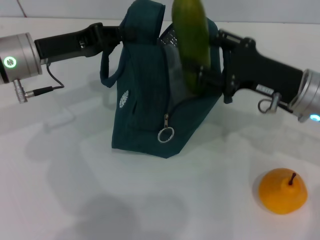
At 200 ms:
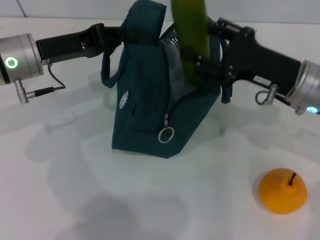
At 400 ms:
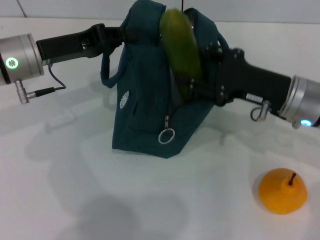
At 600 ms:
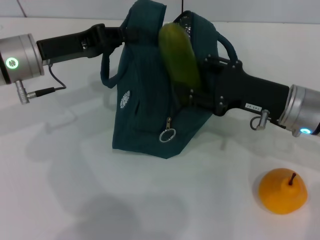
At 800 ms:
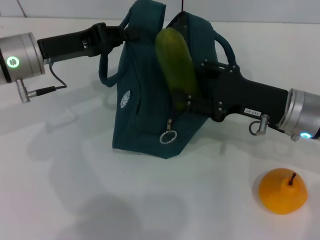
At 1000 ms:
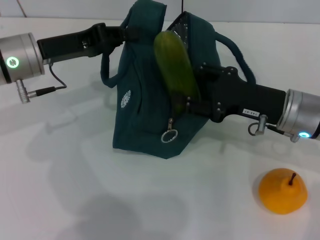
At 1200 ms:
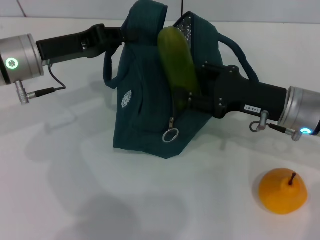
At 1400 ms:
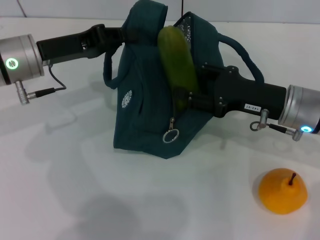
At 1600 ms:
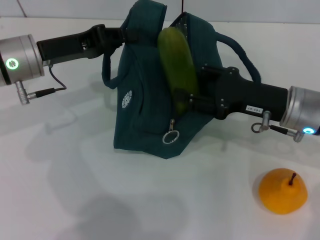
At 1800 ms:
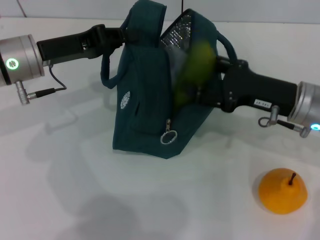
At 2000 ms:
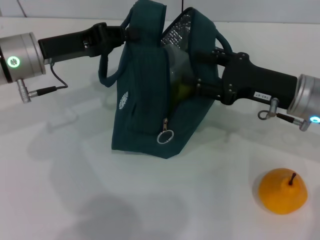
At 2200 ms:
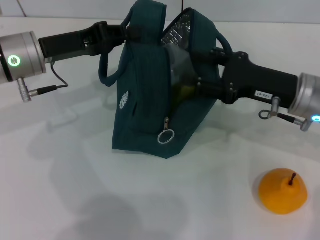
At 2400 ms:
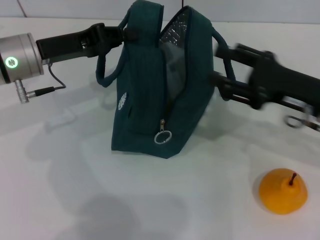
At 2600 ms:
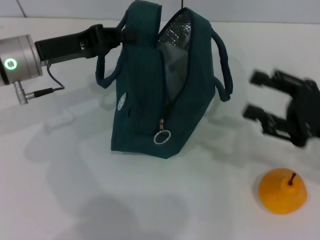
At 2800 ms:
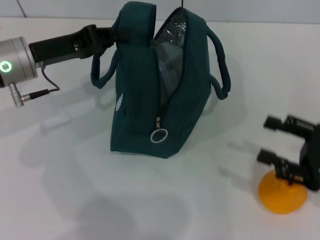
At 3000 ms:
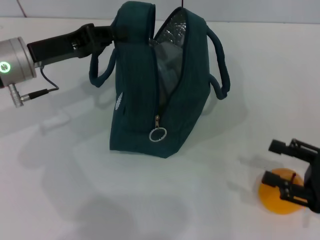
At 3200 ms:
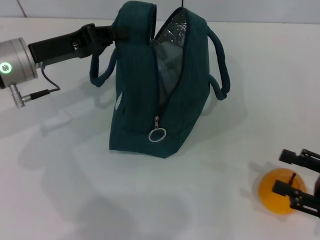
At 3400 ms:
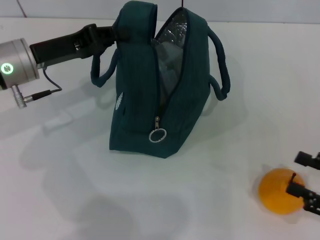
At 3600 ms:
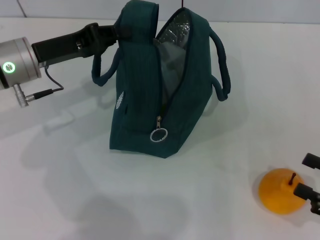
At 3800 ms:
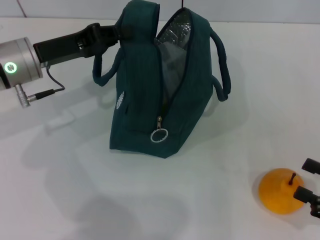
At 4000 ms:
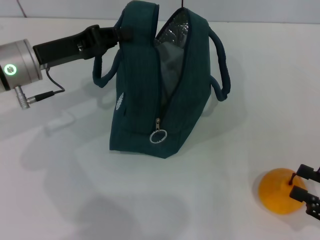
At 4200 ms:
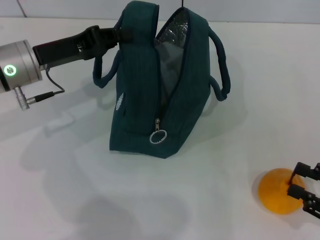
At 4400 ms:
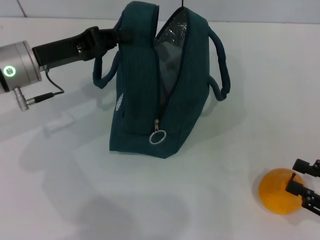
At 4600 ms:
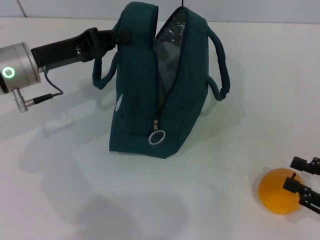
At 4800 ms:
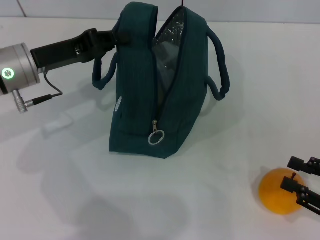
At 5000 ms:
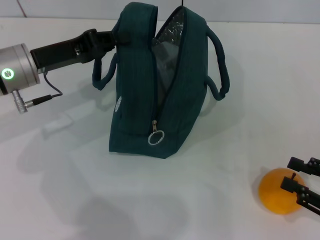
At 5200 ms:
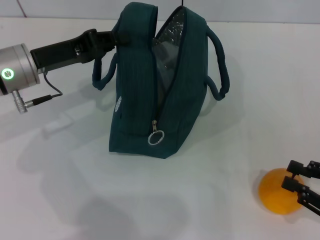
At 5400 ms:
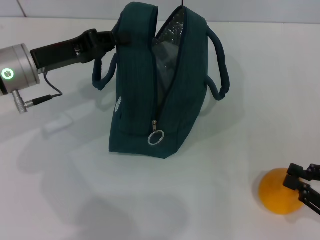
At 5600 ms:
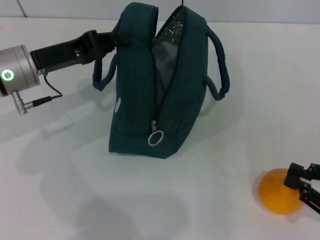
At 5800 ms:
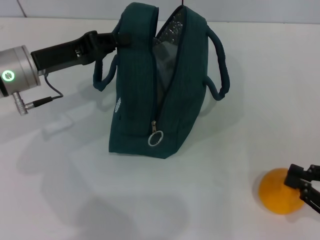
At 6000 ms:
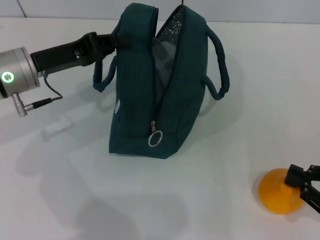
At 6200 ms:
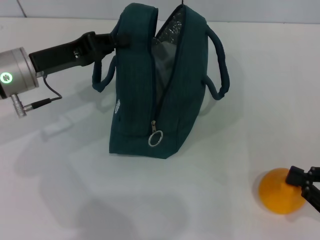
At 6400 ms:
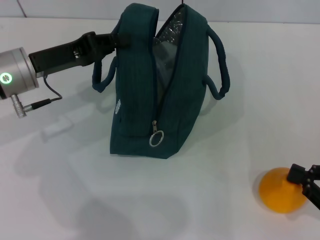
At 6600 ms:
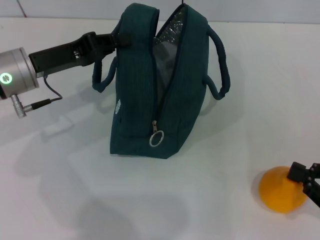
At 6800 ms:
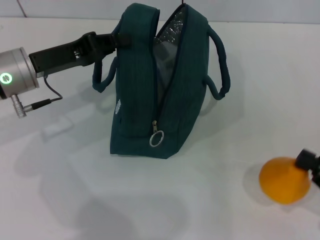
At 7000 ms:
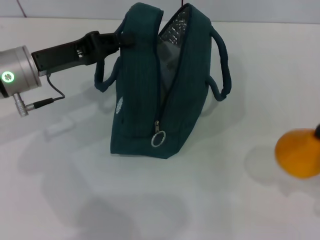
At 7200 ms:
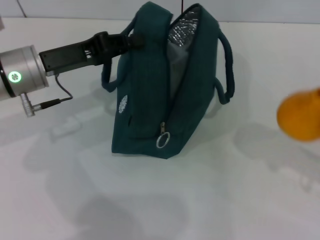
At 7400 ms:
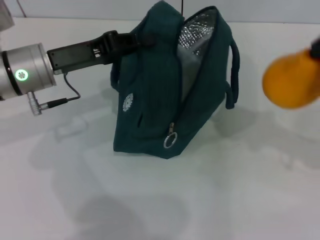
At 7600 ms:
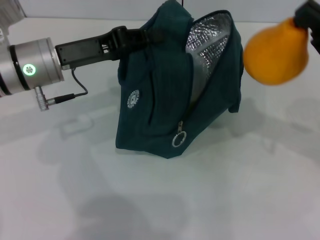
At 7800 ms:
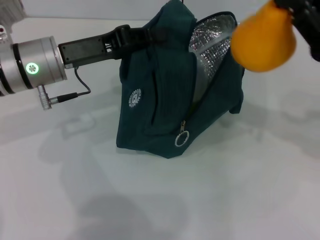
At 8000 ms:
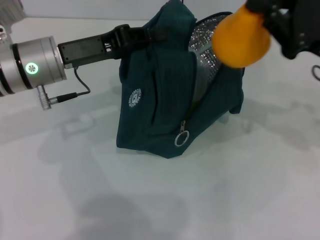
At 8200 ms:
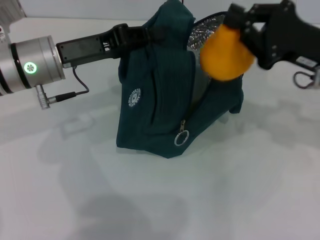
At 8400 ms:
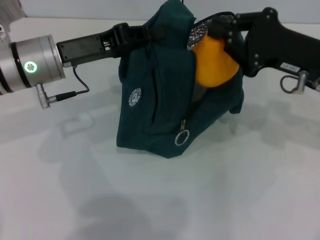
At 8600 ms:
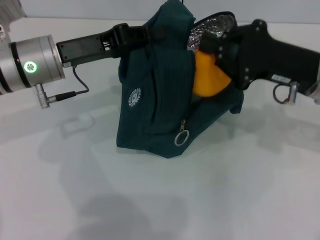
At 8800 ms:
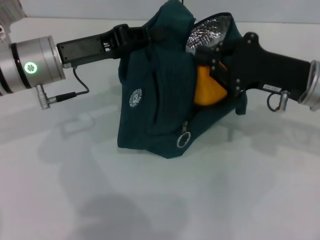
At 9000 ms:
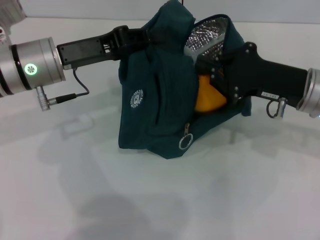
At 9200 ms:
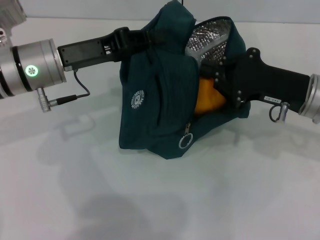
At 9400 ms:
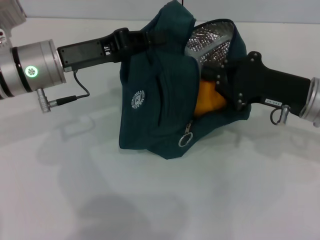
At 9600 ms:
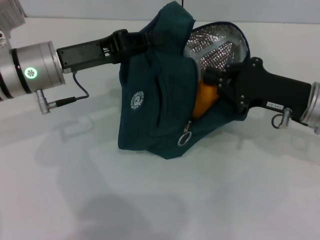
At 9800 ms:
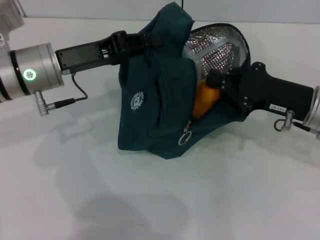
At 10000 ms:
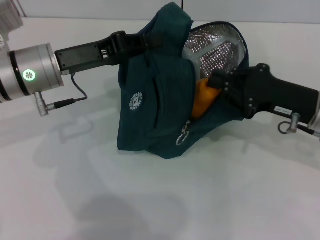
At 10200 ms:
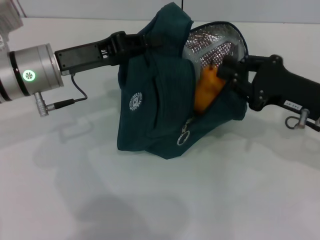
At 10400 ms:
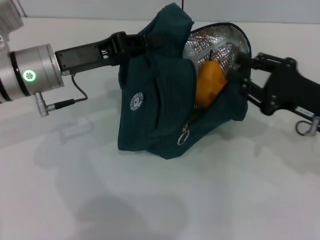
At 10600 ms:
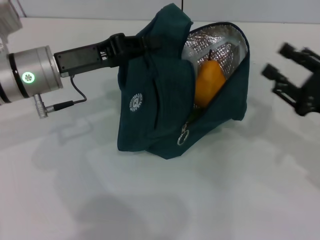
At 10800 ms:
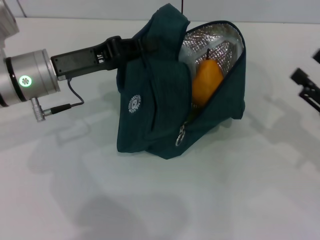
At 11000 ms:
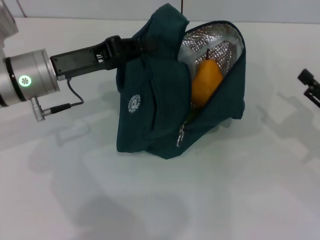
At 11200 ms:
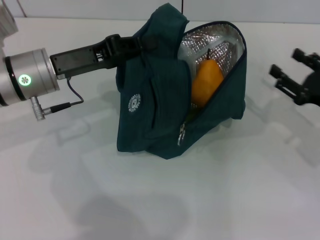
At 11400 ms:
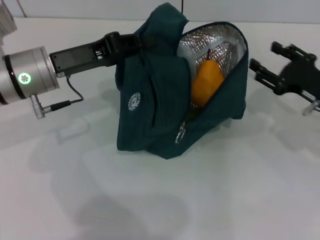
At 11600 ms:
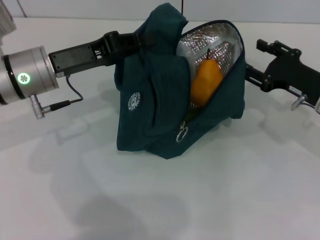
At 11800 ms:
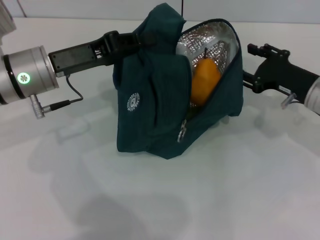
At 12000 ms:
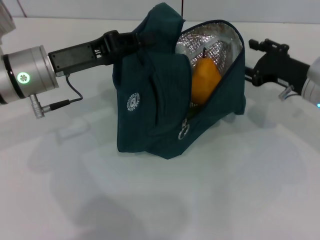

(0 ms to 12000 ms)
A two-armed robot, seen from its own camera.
Step, 0 ms - 2200 ms: Put the cucumber into the lunch bag with your right hand.
Step, 2600 ms - 5600 ms: Grab the pear with your right hand.
0 ms - 1600 ms: There are only small adjustments of the grippers.
1600 ms - 3000 ms: The right gripper shifts about 15 cm to the right and backward.
3000 ms - 4400 ms: There are only small adjustments of the grippers.
4400 ms - 6000 ms: Both grippers stay put.
6000 ms - 7600 ms: The right gripper goes roughly 15 cm upward, forward and to the left.
7600 ms - 9000 ms: The right gripper travels to the left by about 5 cm.
9000 ms - 10400 ms: The right gripper ends up roughly 5 cm from where it was.
10400 ms - 12000 ms: The right gripper goes roughly 5 cm forward, and opens up.

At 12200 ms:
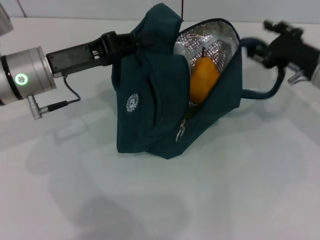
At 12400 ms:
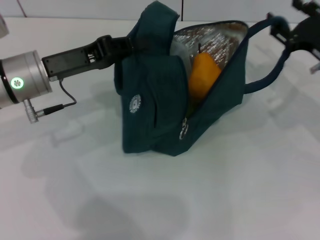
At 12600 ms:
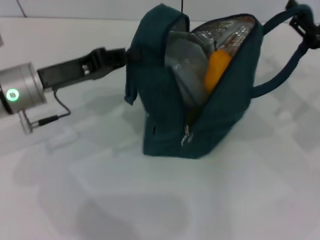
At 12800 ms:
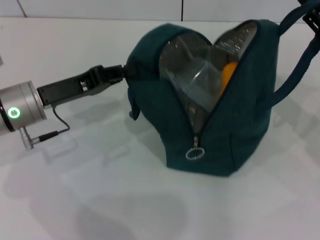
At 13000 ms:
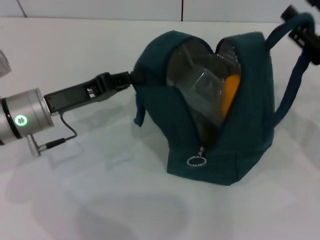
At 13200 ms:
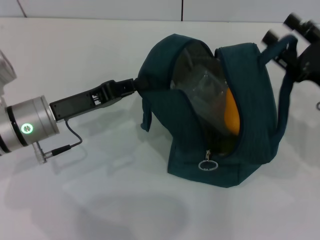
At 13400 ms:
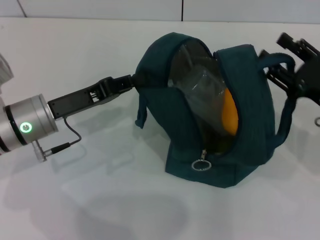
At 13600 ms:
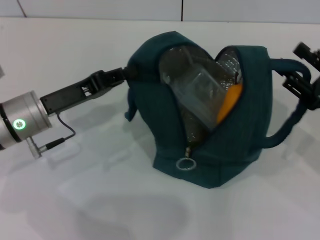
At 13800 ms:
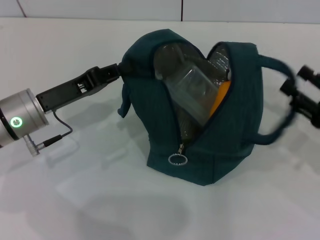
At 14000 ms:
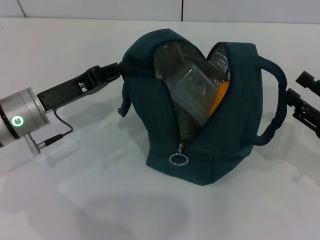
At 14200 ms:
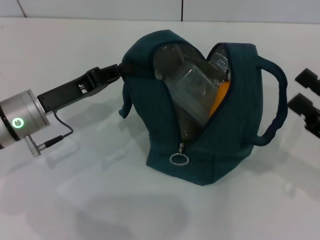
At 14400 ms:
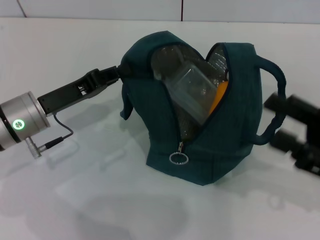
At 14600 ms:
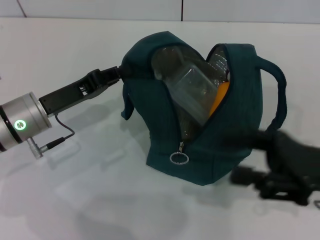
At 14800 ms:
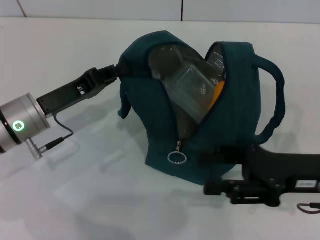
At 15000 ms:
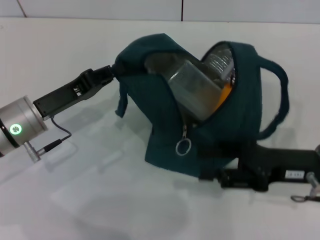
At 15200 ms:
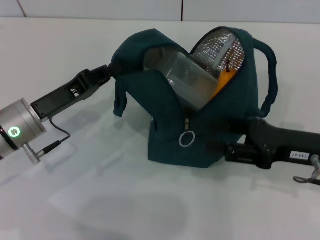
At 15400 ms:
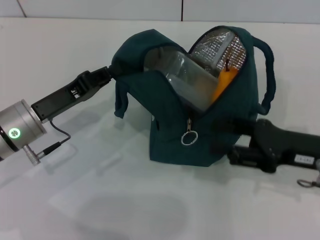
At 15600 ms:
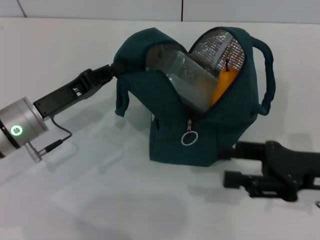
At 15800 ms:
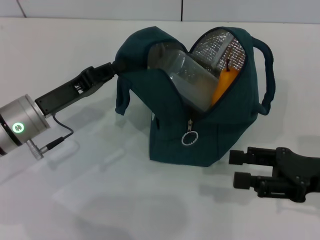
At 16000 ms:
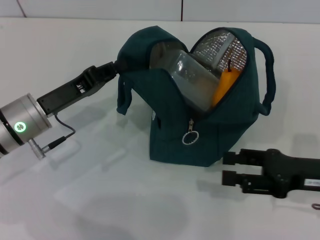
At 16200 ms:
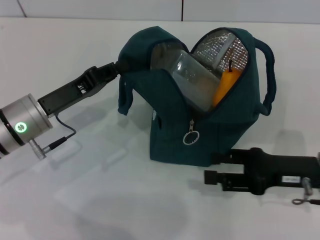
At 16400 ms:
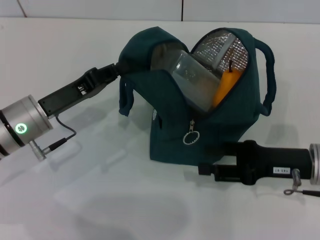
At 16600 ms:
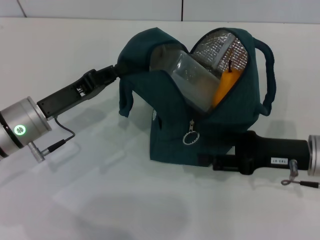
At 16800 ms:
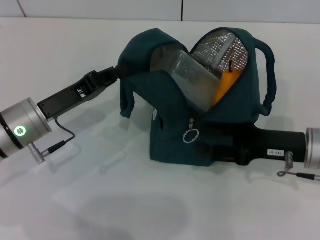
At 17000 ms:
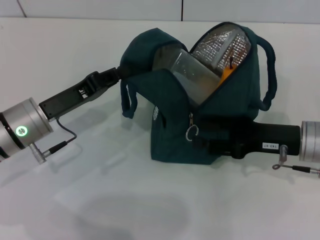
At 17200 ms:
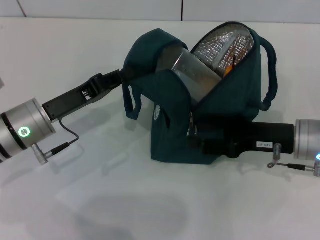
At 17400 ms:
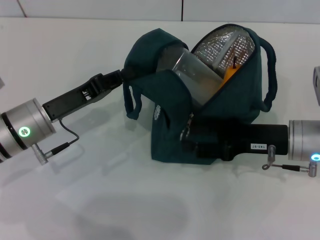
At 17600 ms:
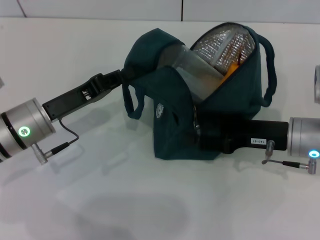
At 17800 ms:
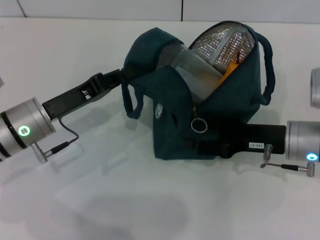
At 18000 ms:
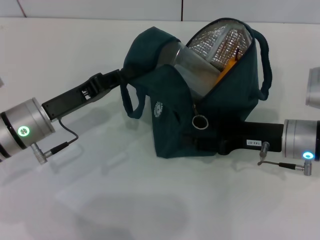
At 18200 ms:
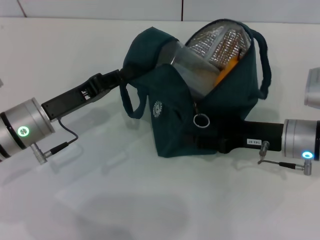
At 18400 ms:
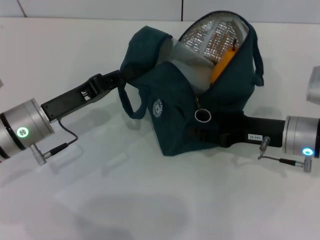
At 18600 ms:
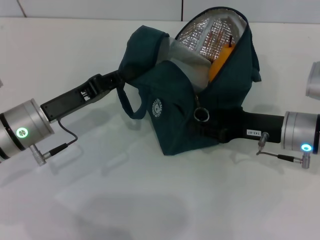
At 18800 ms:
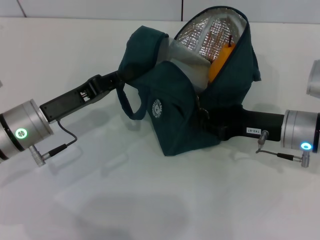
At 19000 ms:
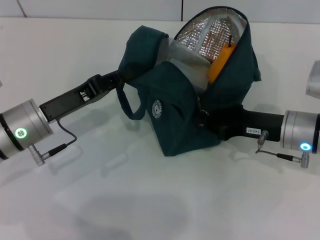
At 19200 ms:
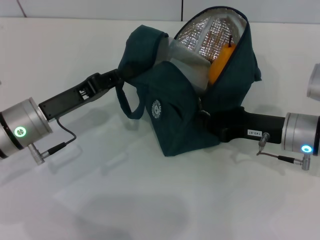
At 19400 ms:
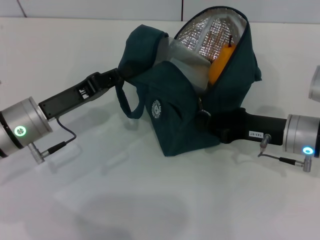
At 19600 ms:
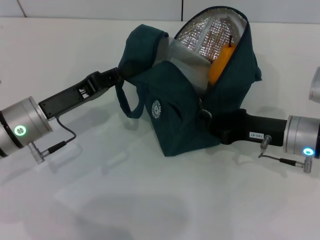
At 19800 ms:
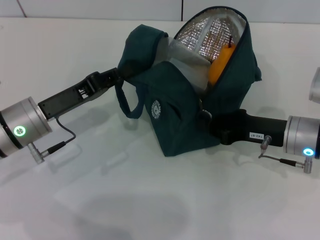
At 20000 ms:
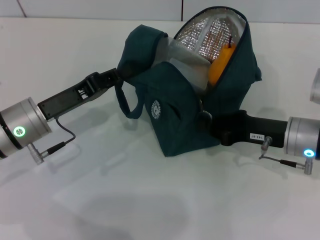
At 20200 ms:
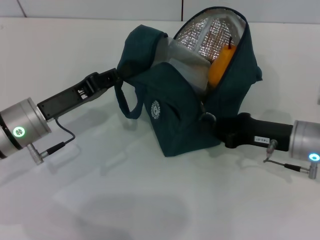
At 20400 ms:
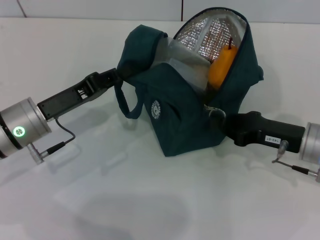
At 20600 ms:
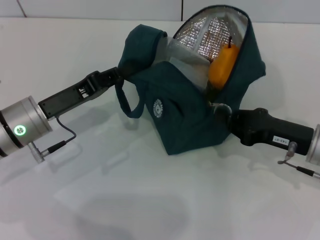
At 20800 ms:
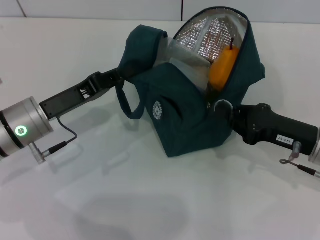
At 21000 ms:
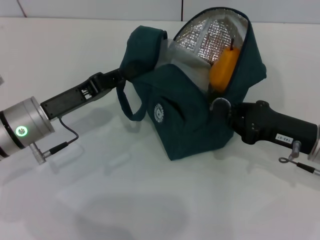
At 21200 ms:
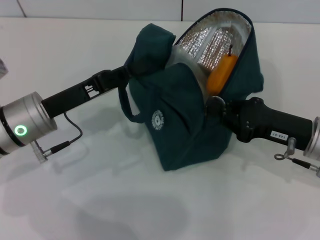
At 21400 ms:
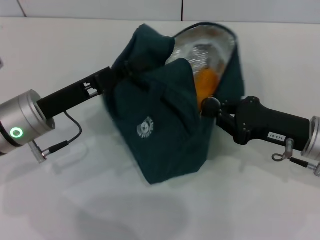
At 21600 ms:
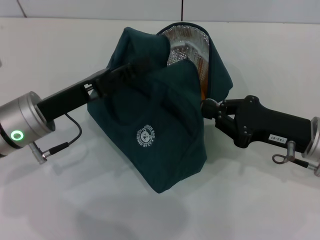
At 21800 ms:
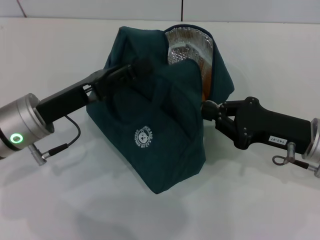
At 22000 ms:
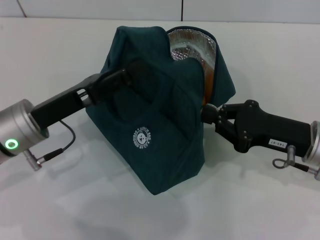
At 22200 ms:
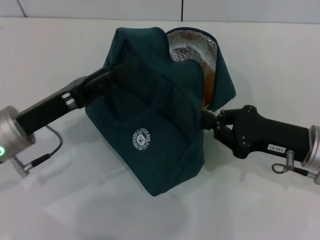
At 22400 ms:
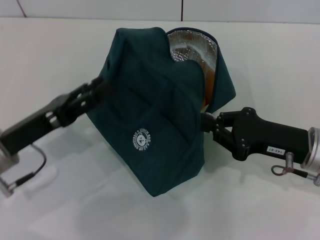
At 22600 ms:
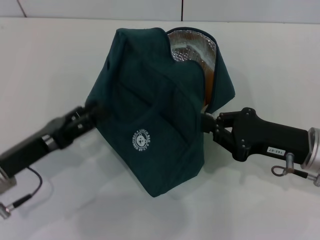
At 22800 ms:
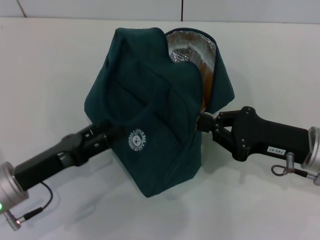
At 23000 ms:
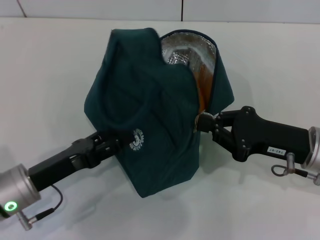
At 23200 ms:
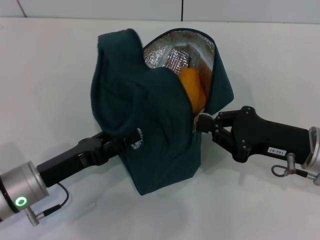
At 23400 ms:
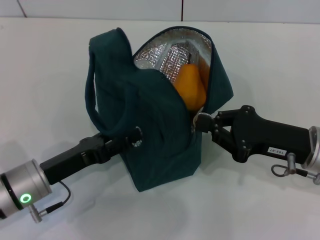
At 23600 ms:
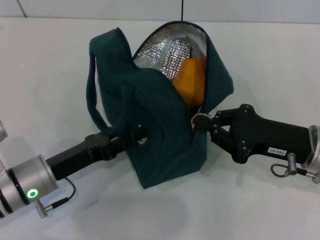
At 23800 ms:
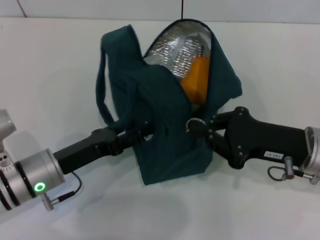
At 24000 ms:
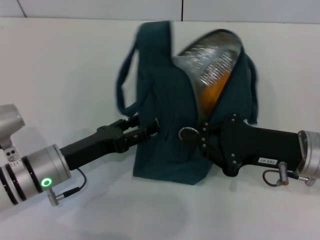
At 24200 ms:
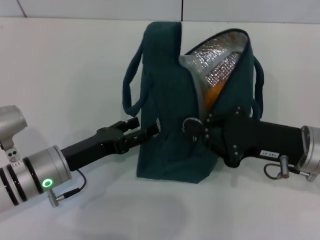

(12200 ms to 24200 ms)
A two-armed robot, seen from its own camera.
Step, 12200 ms - 14000 ms: Hold the lunch bag with your right hand.
Step, 14200 ms - 22200 ms: Hold the lunch bag with your left hand.
12200 ms - 13800 ms: The left gripper shifts by about 5 cm; the right gripper heads backward and to the right, covering roughly 15 cm.
13800 ms - 15200 ms: The right gripper is displaced to the left by roughly 5 cm.
15200 ms - 16600 ms: The grippers stay close to where they were, moving slightly.
16600 ms - 18200 ms: The grippers make only small movements.
18200 ms - 19800 ms: The right gripper closes its fingers.
19800 ms - 21200 ms: The grippers make only small movements.
21200 ms - 22600 ms: The left gripper heads backward, covering some 5 cm, and opens up.
22600 ms - 24200 ms: The left gripper travels to the right by about 5 cm.
